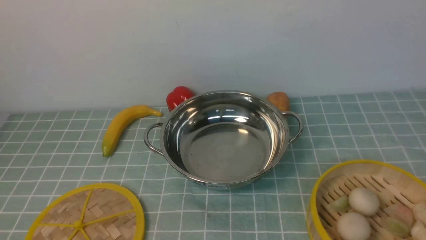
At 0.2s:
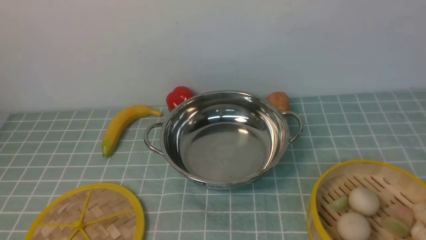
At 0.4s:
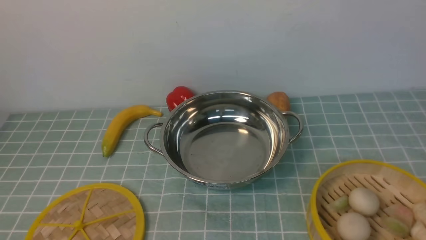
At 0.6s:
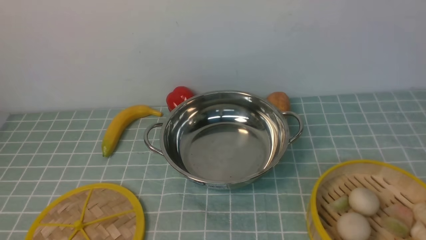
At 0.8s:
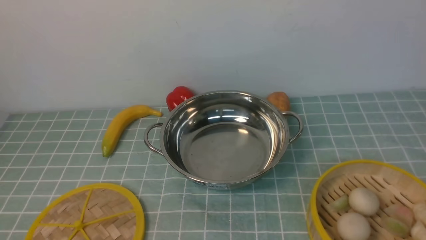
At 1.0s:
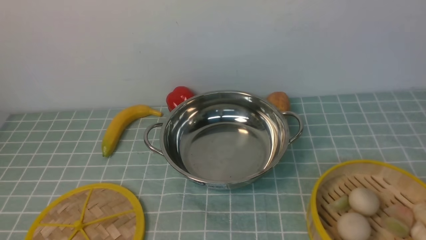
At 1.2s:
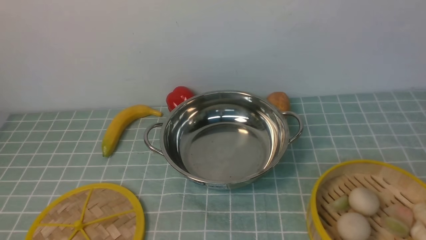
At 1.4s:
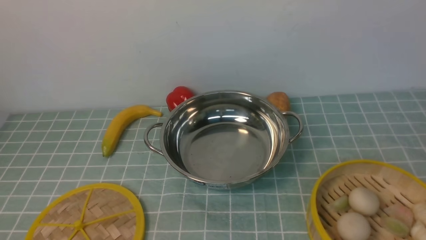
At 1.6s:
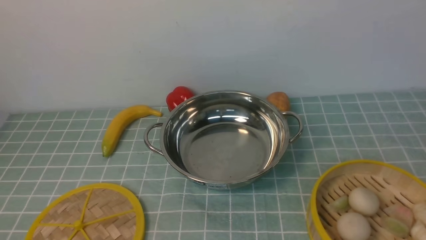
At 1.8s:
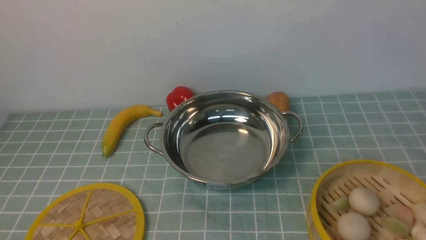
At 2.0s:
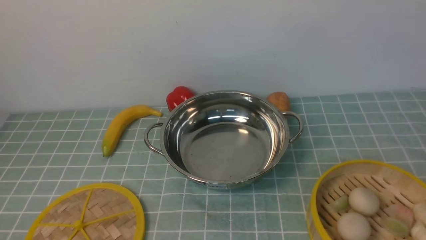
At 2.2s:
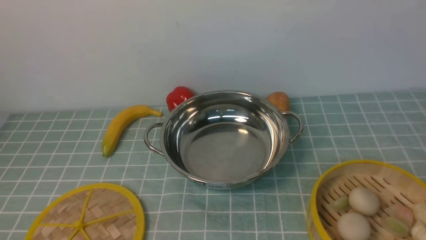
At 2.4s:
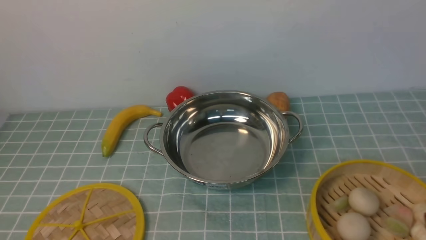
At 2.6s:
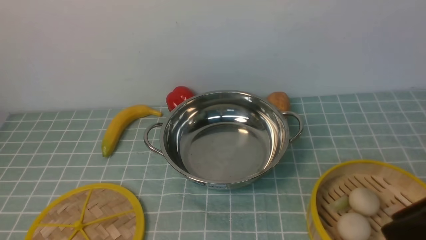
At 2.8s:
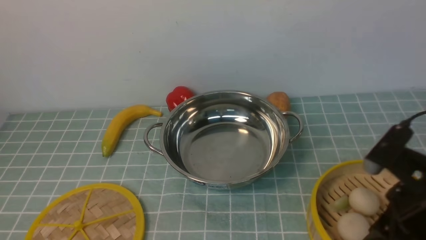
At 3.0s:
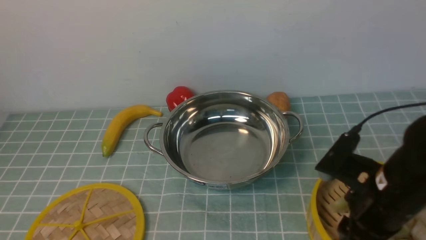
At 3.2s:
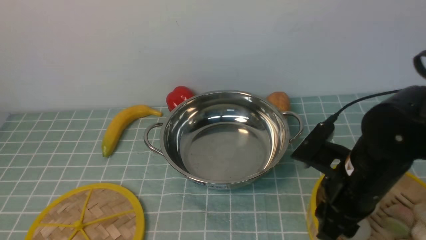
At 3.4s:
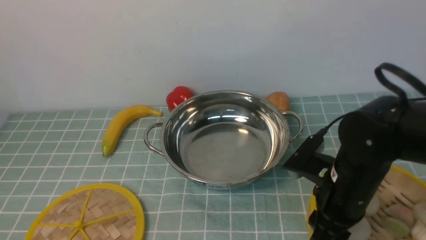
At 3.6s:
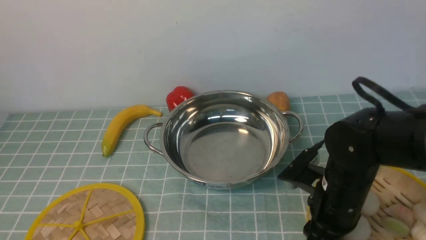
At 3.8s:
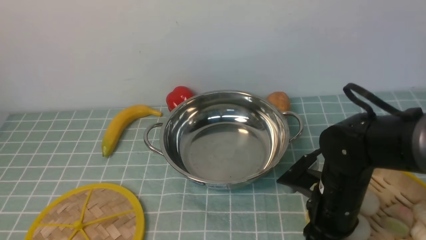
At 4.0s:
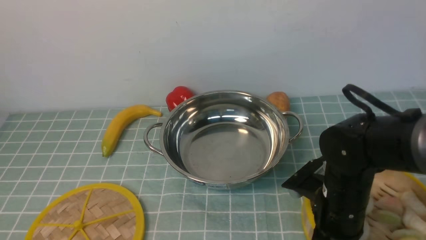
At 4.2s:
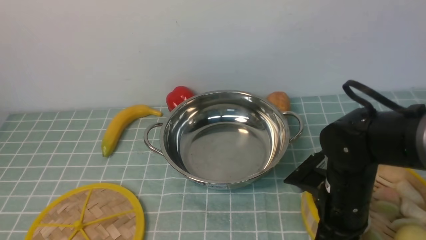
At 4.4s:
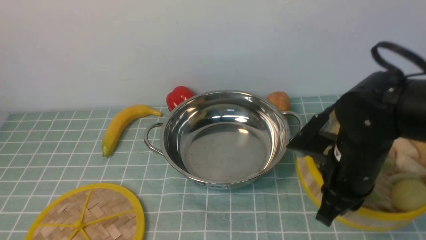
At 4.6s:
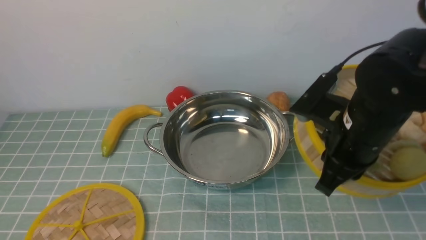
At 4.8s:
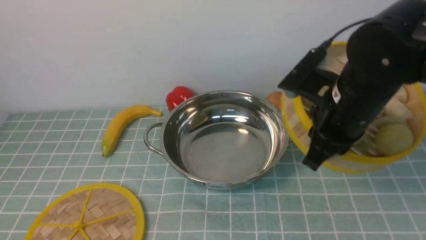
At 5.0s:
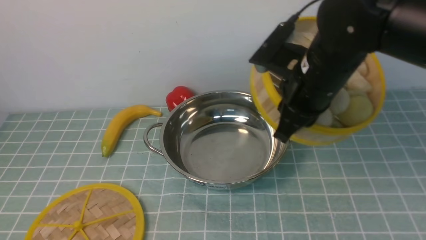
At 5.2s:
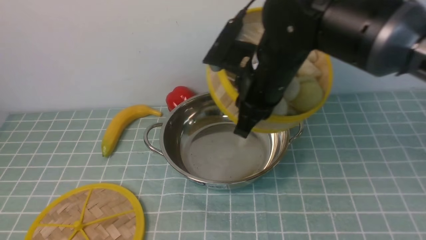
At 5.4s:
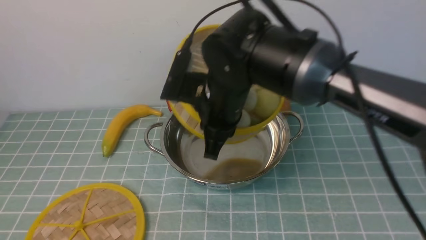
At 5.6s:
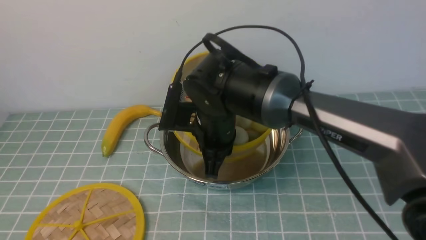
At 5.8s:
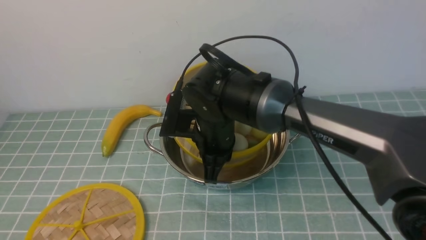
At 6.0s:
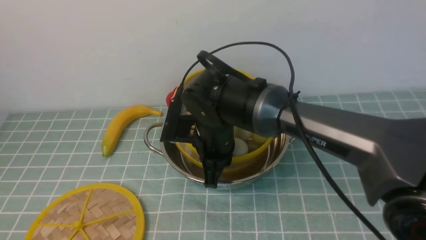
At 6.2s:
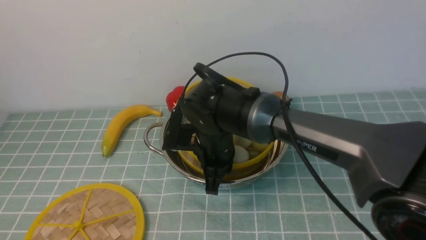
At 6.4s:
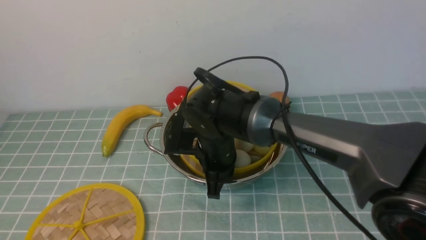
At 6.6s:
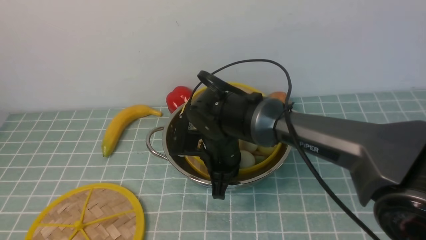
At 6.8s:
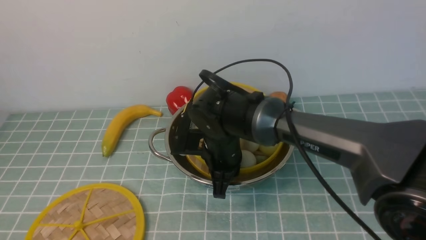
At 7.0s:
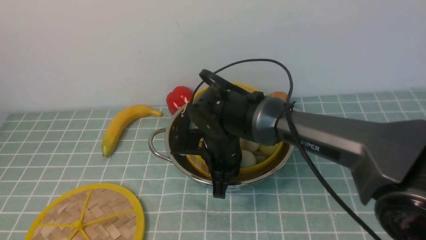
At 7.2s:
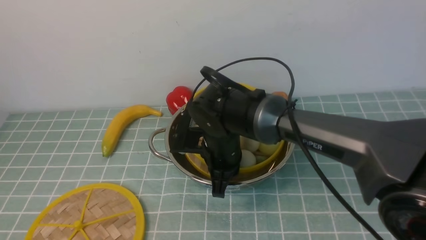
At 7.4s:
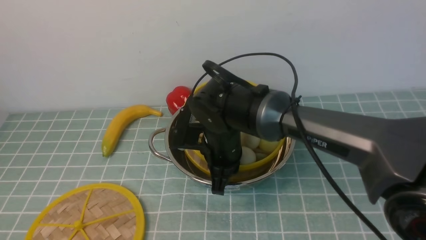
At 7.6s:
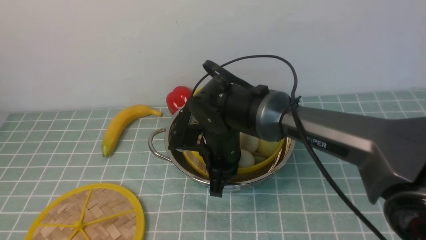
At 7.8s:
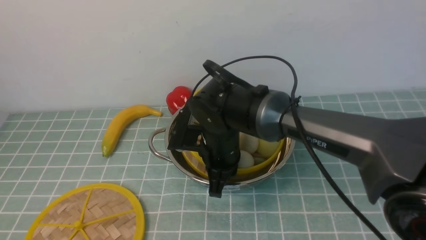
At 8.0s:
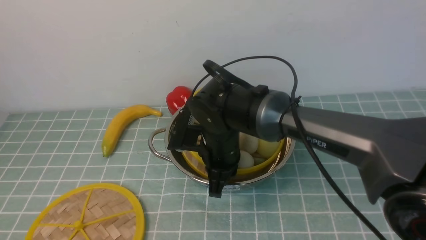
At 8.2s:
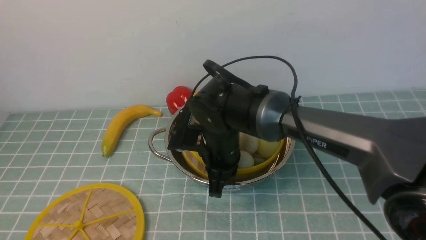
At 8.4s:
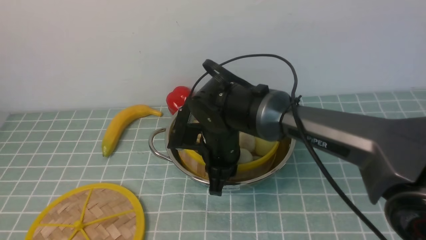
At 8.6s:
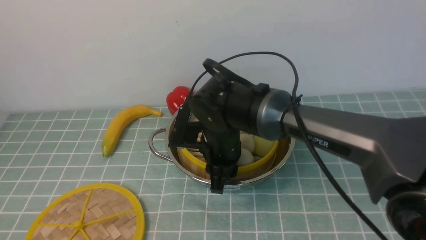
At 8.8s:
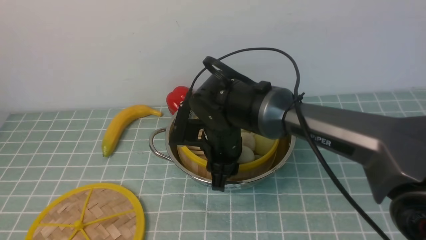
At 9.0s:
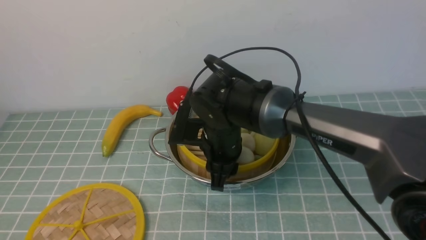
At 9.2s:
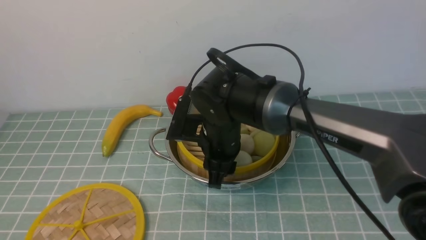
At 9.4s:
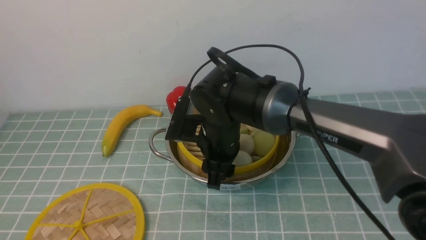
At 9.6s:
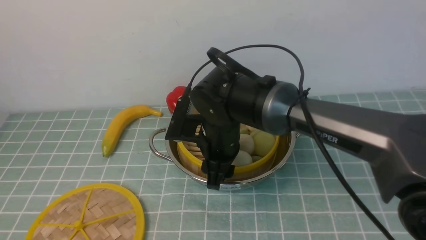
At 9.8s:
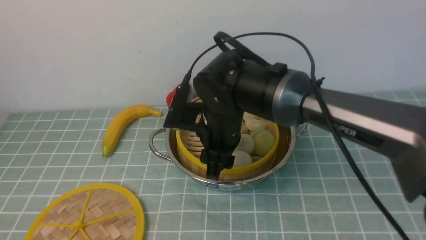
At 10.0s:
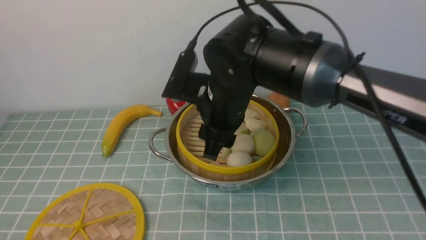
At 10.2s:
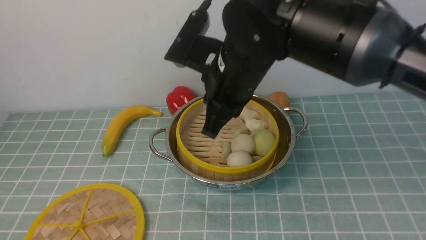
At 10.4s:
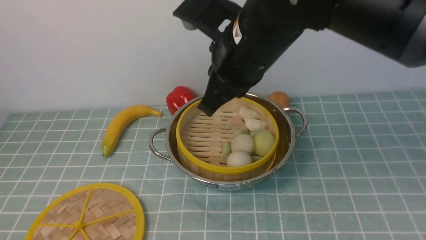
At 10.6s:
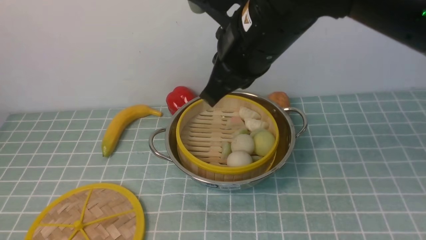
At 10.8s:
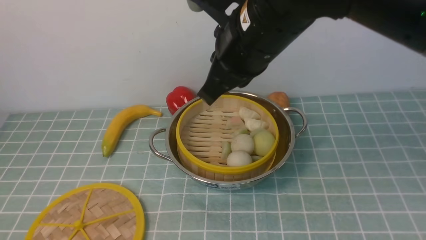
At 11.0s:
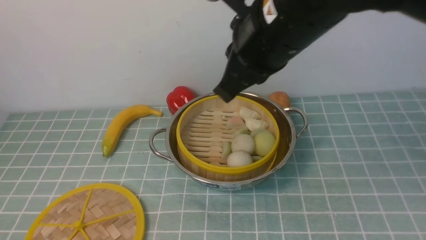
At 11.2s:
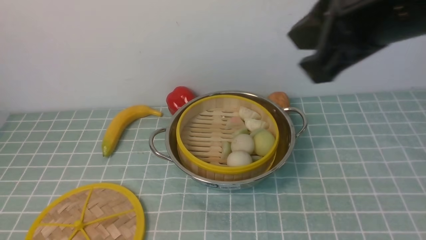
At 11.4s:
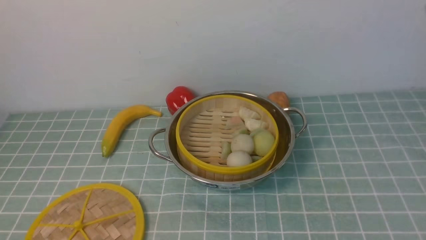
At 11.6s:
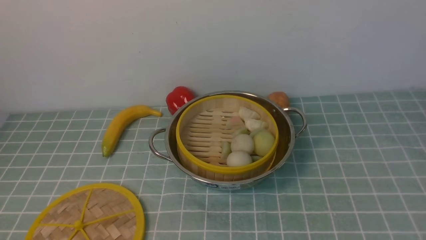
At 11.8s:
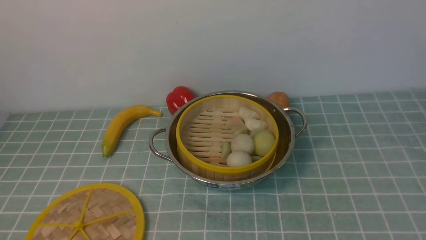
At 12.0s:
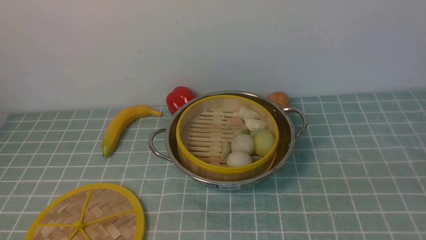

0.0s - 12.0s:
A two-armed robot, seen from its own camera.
Task of the whole recording: place the steamer in the pot on the blue tablecloth, and put the lid on the steamer.
Step, 0.0s - 4.6s: use the right arm to lift the steamer closest to it.
Step, 4.8s - 10.2s: use the right arm to put the steamer into the iron steamer pot in the middle.
1.6s - 3.0s: The right gripper travels forward, downward and to the left by roughly 20 cm.
3.0s - 4.4s: The right gripper goes approximately 10 cm forward and to the left, and closes.
4.4s - 6.0s: The right gripper is displaced to the left and forward by approximately 20 cm.
6.0s - 7.6s: The grippers stay close to where they were, moving slightly.
7.6s - 9.0s: The right gripper opens.
9.0s - 10.4s: The right gripper shifts about 15 cm upward, and closes.
10.4s - 12.0s: The right gripper shifts approximately 35 cm to the right and backward.

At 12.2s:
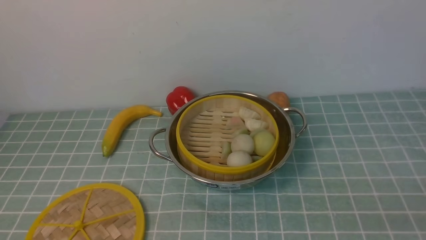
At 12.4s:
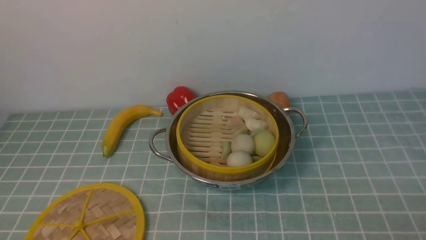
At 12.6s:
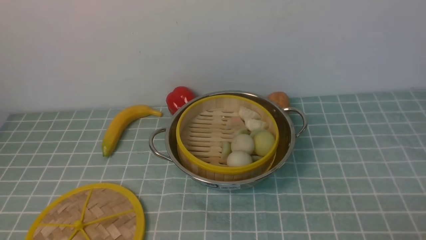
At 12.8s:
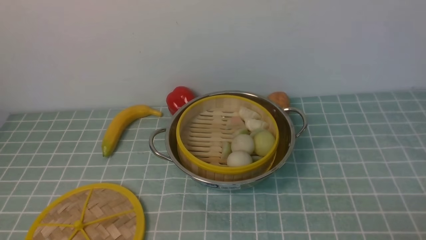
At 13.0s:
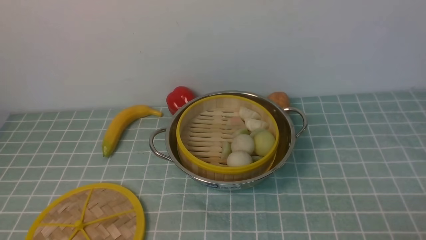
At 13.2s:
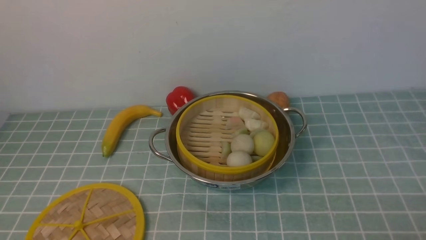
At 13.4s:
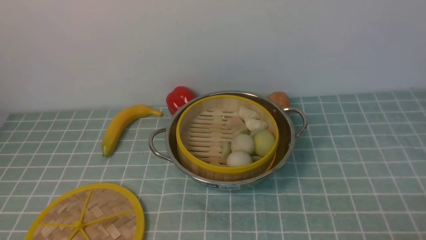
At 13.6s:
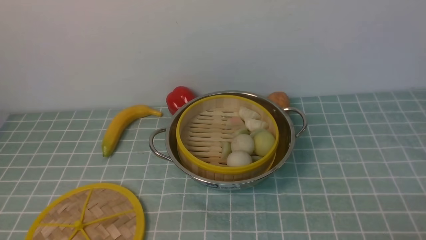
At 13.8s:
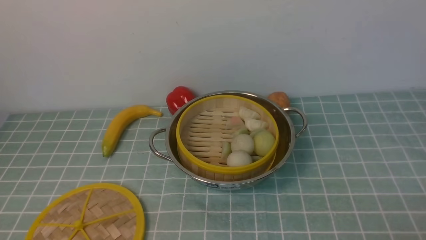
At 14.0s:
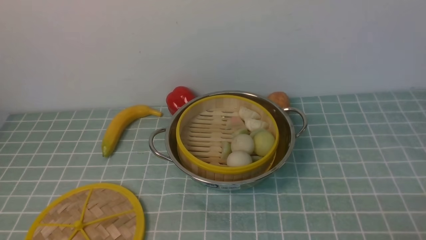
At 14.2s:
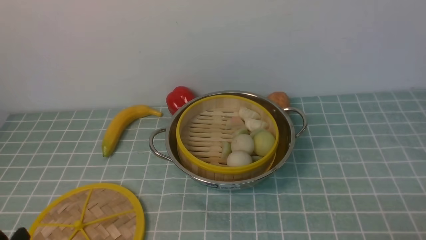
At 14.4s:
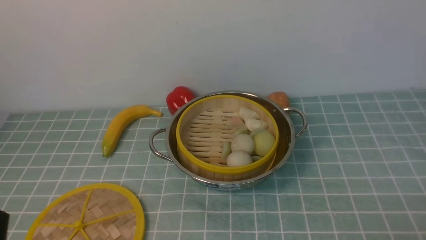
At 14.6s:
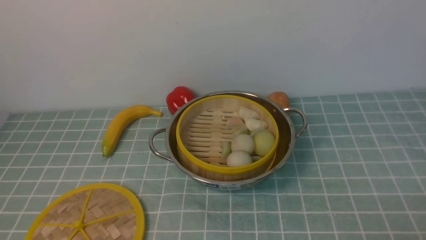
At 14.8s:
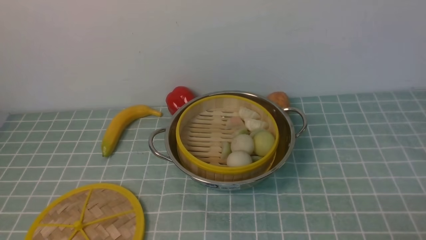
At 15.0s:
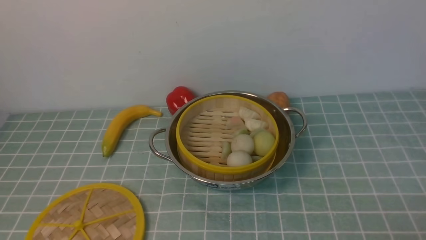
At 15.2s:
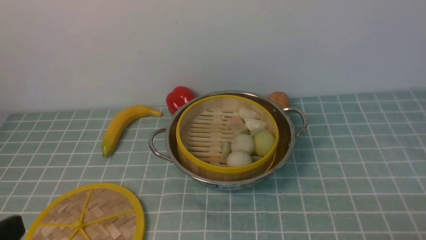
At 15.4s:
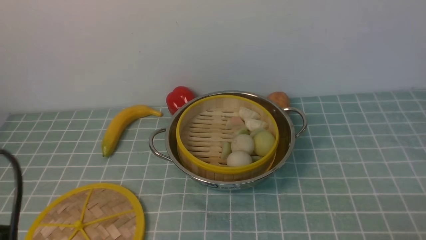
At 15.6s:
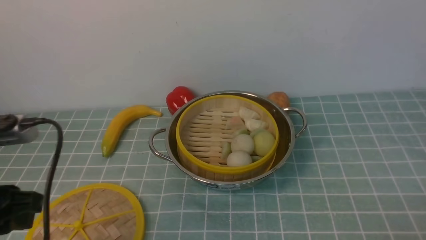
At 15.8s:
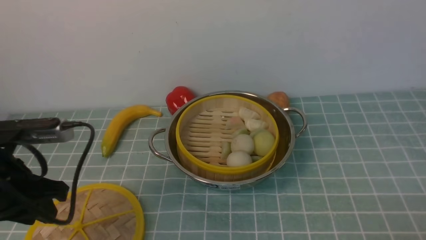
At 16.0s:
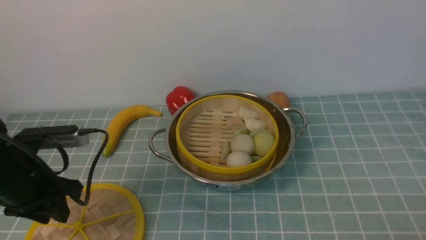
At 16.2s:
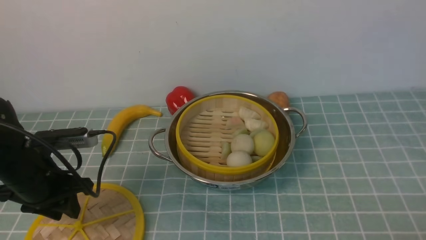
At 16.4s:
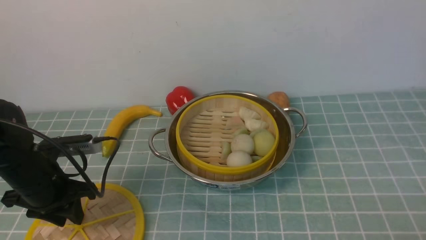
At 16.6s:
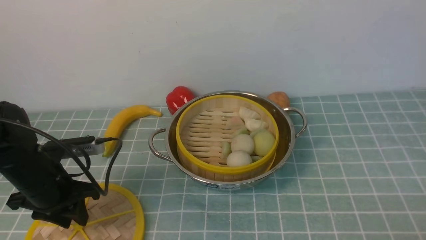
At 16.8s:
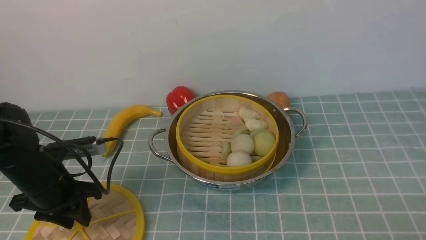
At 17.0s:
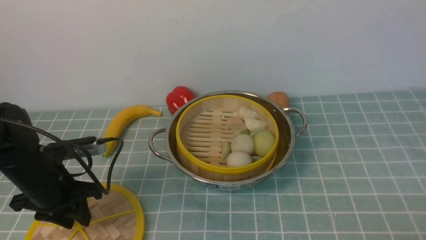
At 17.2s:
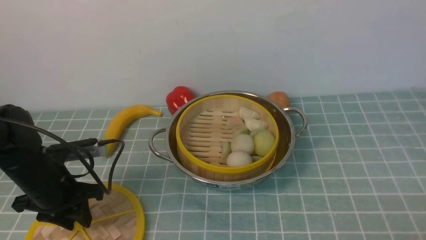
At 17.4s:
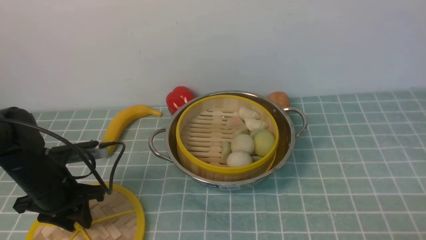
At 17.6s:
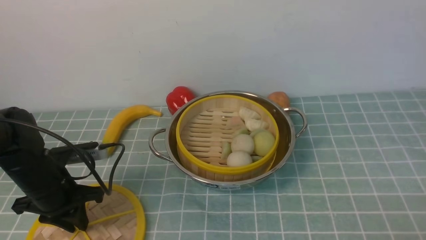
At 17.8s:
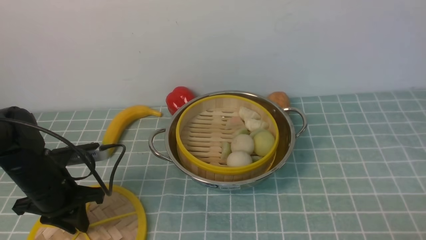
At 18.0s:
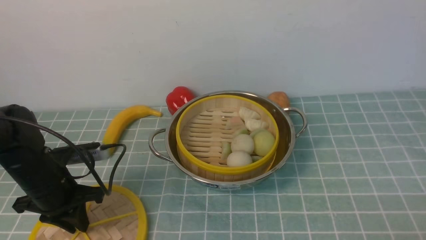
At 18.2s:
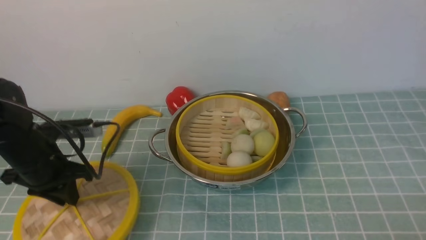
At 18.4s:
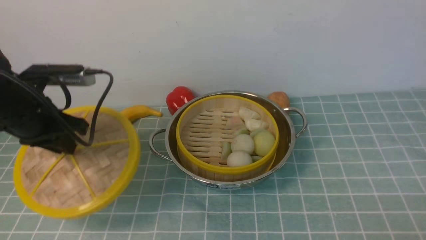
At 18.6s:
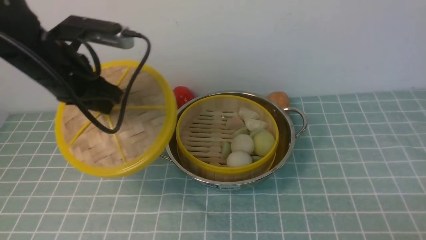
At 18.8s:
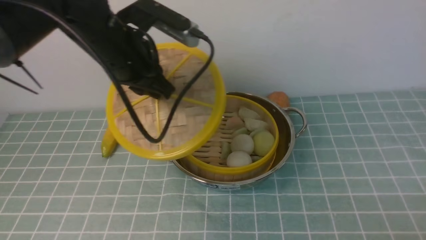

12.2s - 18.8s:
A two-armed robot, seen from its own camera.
Task of the whole recording: place the steamer in the pot on the blue tablecloth, and put the lid on the steamer.
Step, 12.2s - 18.6s: use the left arm to lift the lid of the steamer.
13.8s - 15.4s: The left gripper goes roughly 15 cm upward.
15.4s - 17.2s: The left gripper moves forward and downward, approximately 25 cm.
17.2s - 18.8s: The left gripper heads upward, to the right and forward, covering some 20 cm.
